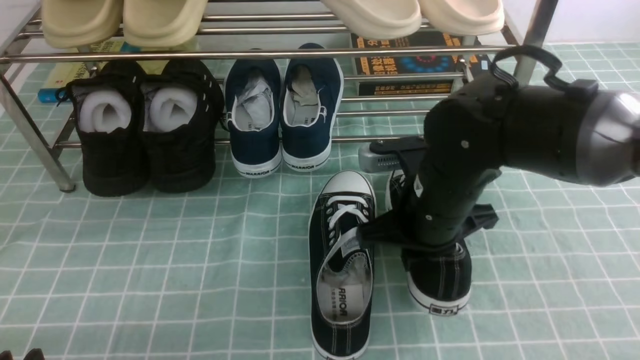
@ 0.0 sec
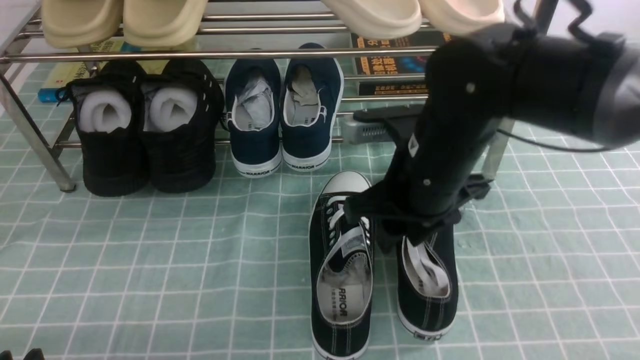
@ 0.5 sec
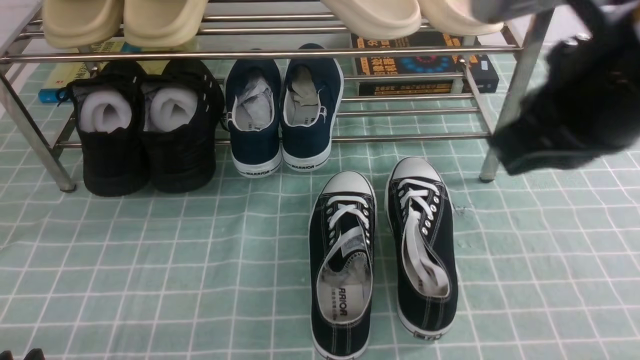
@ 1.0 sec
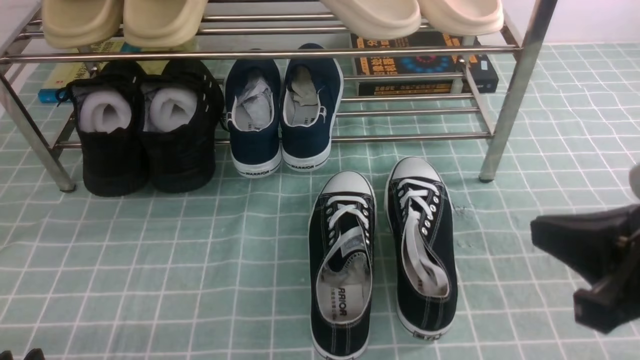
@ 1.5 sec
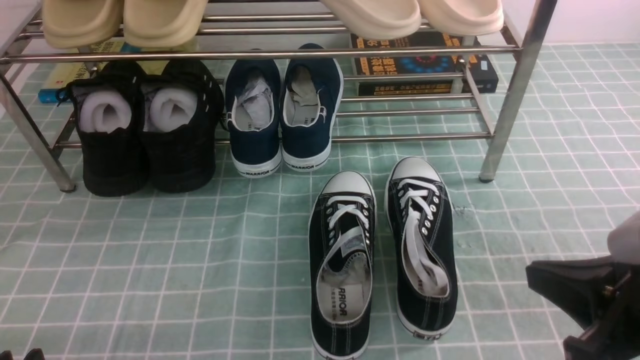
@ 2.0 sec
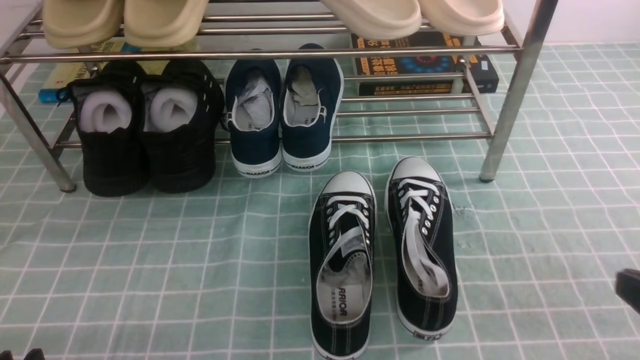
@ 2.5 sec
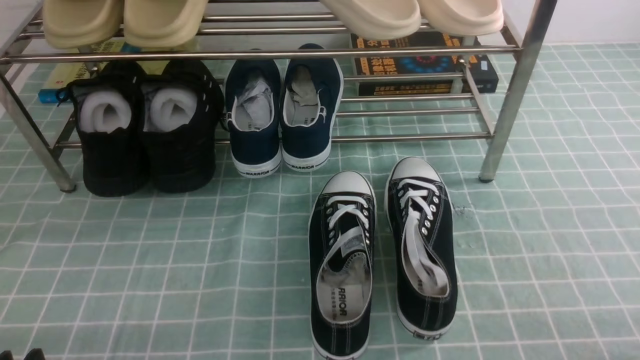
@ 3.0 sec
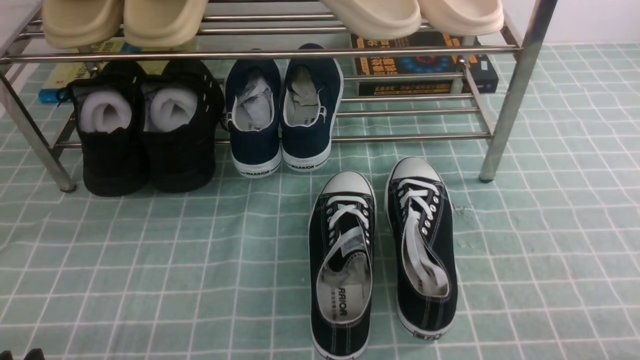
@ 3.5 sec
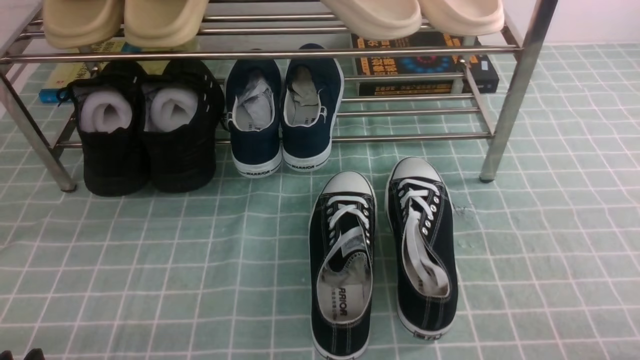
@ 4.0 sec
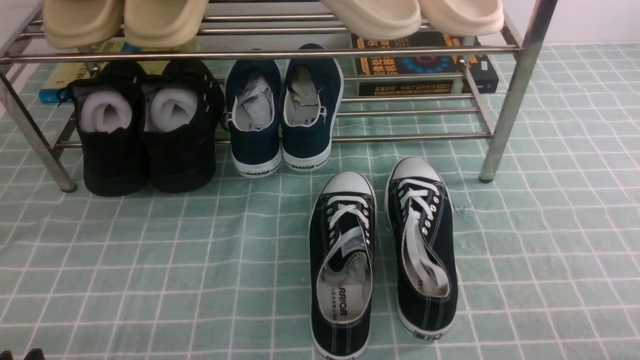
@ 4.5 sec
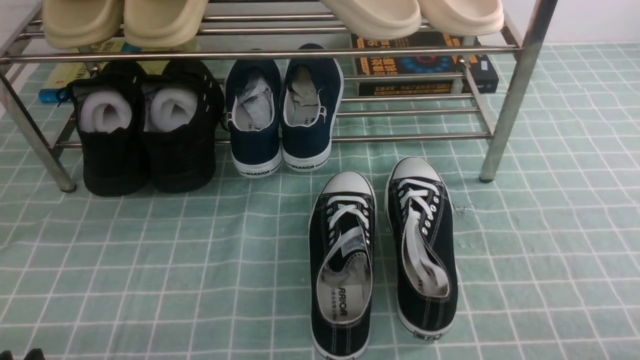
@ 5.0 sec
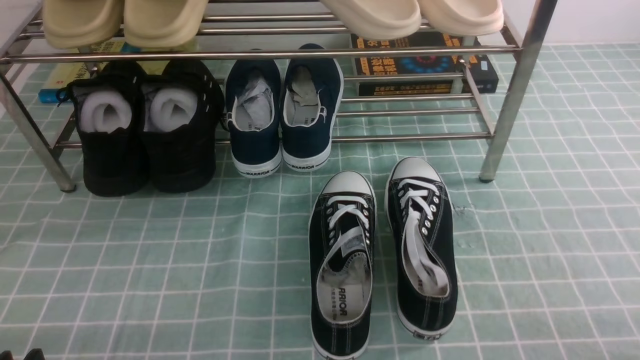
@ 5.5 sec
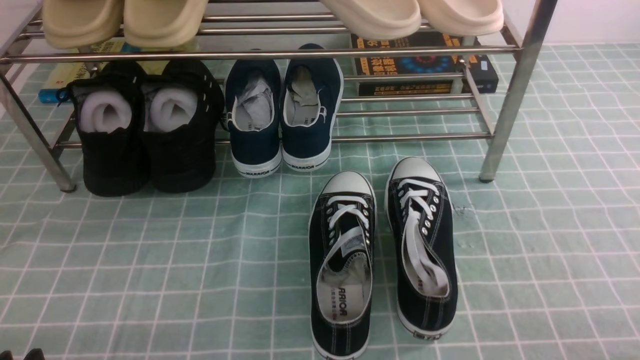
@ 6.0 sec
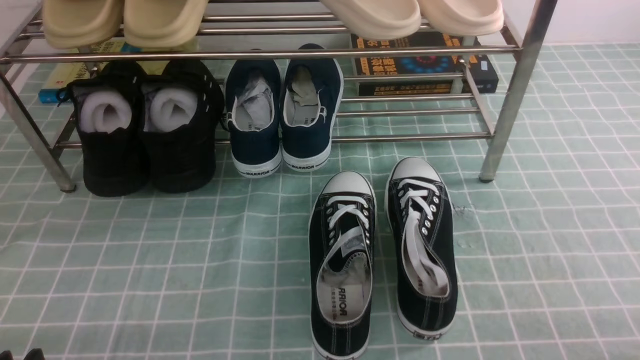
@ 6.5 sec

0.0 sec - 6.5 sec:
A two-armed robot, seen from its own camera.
0.0 sec - 2.0 sec: The right gripper is displaced backward and to the right by roughly 20 cm, and opens, then closes again.
2.0 sec - 4.5 sec: The right gripper moves downward, to the right and backward, roughly 15 cm.
4.5 sec - 6.5 sec: Both grippers stay about where they are.
